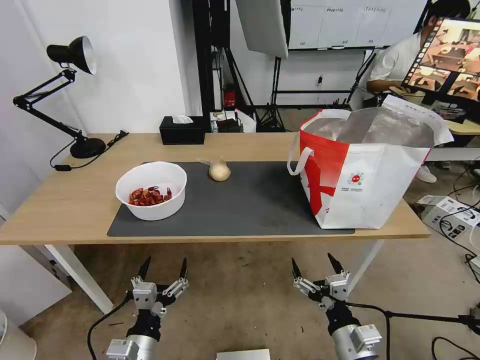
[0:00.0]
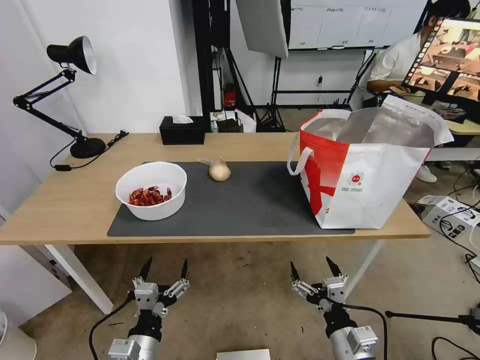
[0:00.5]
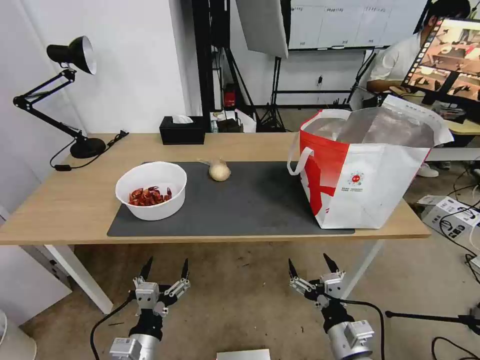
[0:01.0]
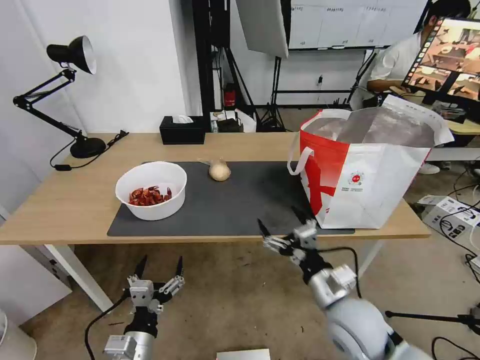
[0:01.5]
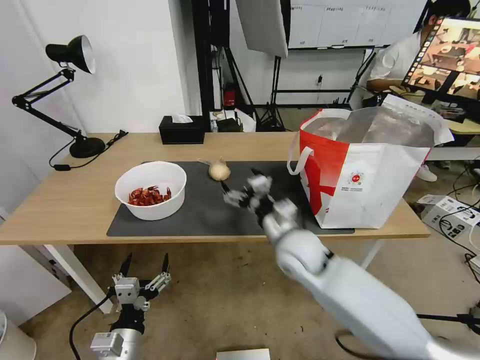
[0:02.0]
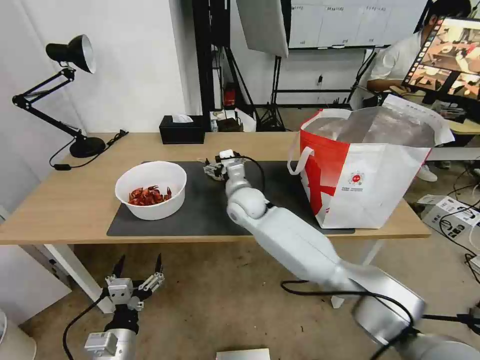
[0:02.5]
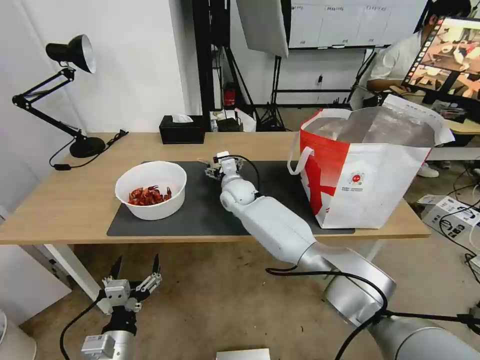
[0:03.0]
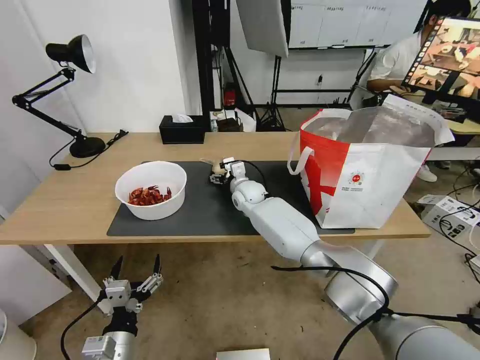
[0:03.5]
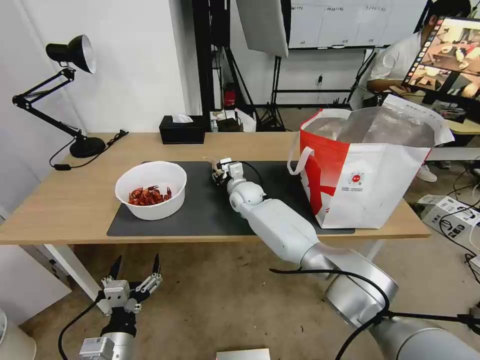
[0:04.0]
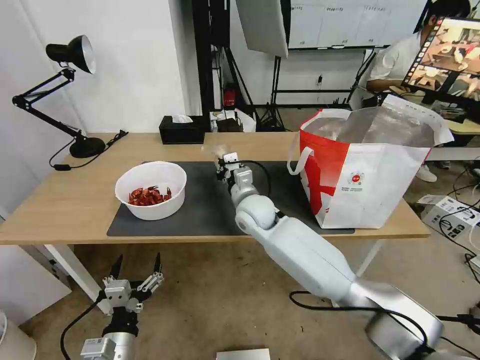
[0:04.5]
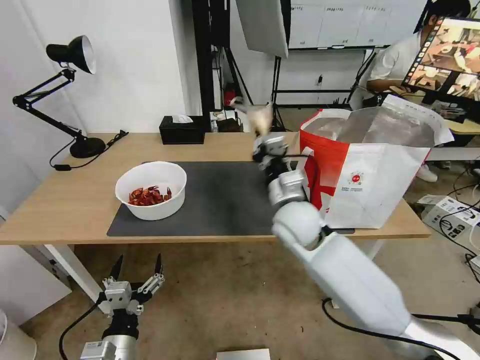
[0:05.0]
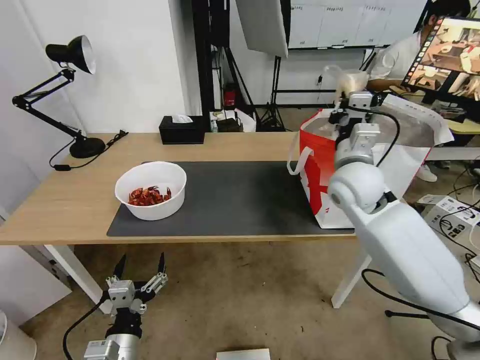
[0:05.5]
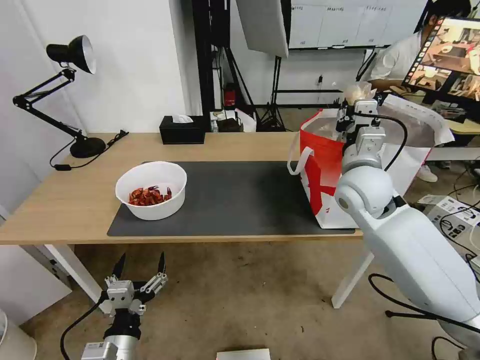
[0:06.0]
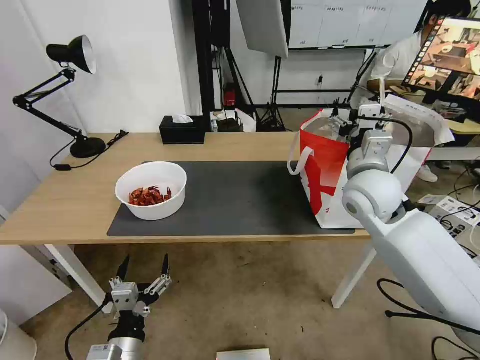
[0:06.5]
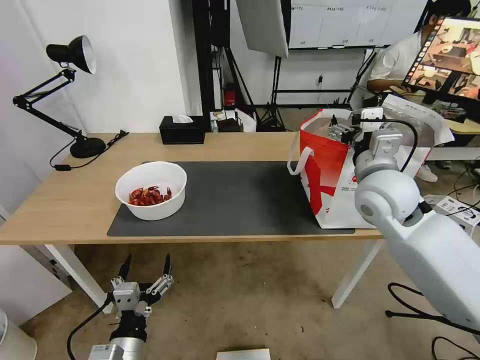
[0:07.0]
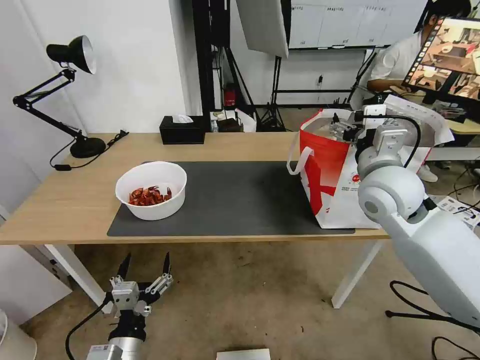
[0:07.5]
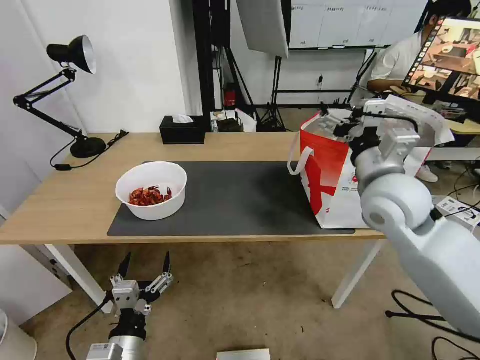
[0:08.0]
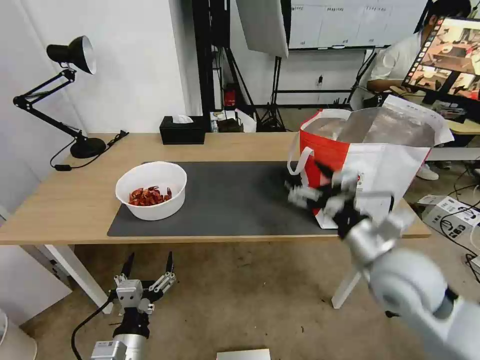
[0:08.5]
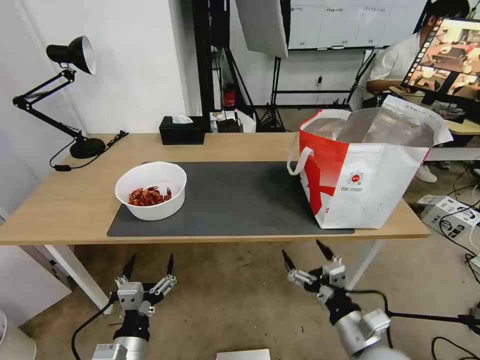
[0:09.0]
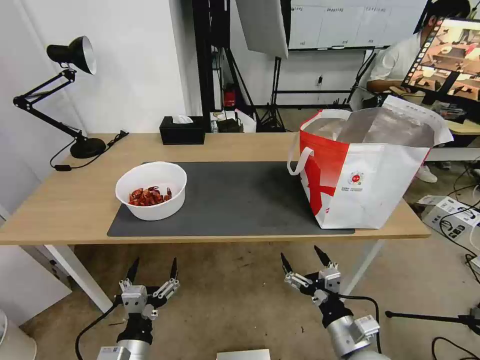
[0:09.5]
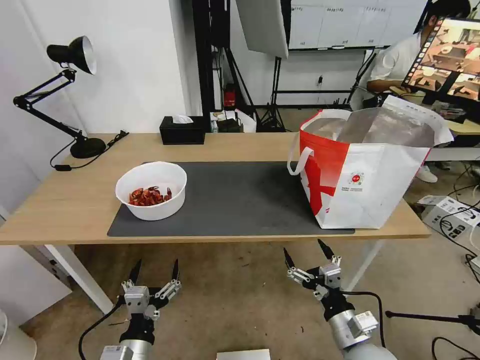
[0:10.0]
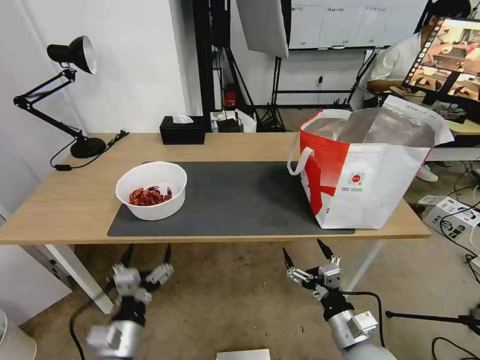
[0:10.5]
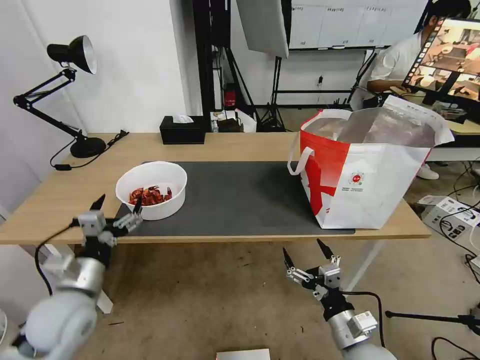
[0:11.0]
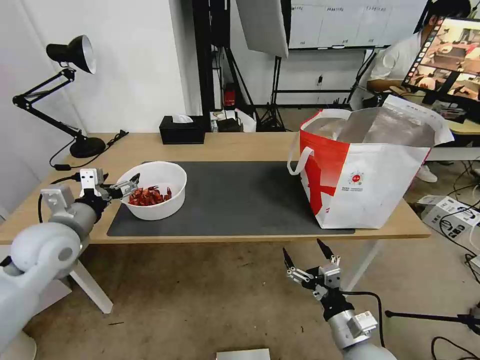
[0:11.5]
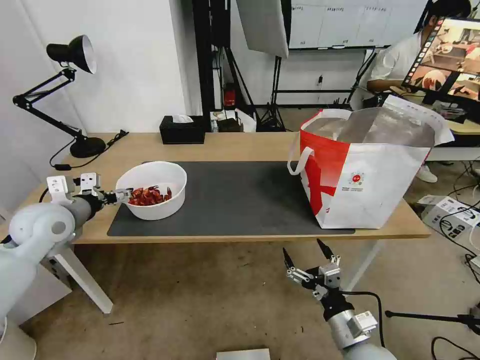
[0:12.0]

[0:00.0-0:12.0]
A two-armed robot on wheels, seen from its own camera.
Task of the whole recording: Pick up the trash from the table and place it into the takeout bag.
0:00.0 to 0:02.0: The right gripper is displaced forward, to the left and upward by about 25 cm.
0:02.0 to 0:04.0: The right gripper is displaced forward and to the left by about 25 cm, and closes up.
0:04.0 to 0:06.0: The right gripper is displaced to the right, upward and backward by some 30 cm.
0:06.0 to 0:08.0: The right gripper moves backward, some 5 cm, and opens up.
0:08.0 to 0:10.0: The right gripper heads downward and backward, covering about 35 cm.
0:10.0 to 0:12.0: The left gripper shifts approximately 35 cm forward, upward and to the left.

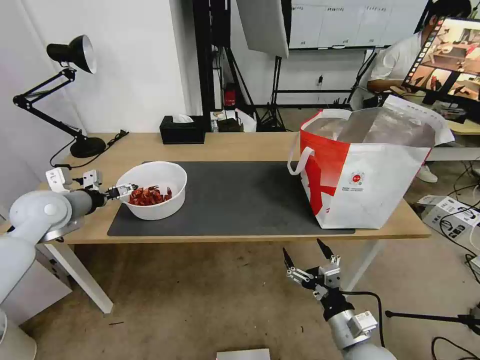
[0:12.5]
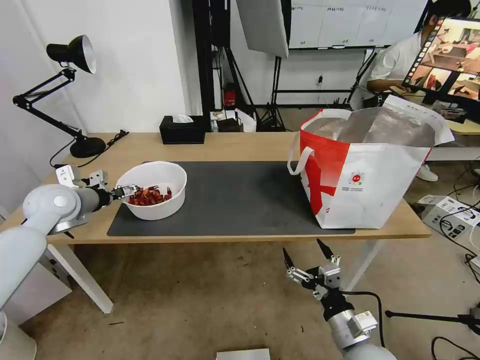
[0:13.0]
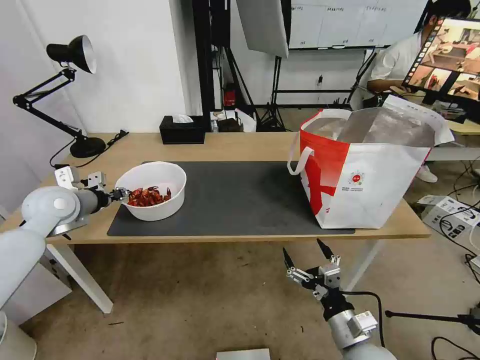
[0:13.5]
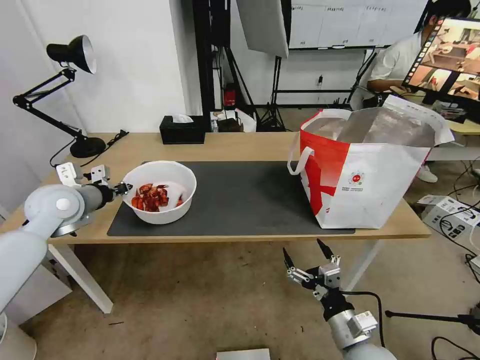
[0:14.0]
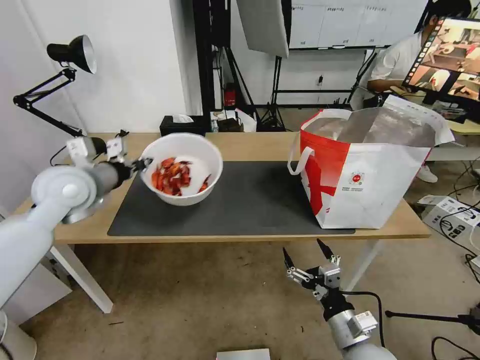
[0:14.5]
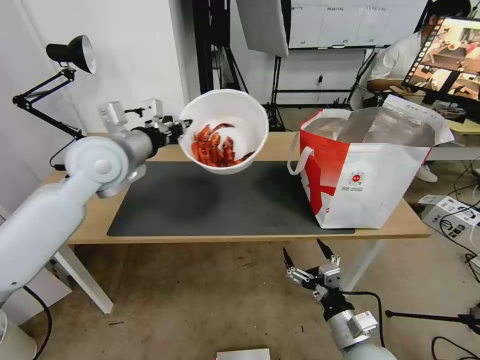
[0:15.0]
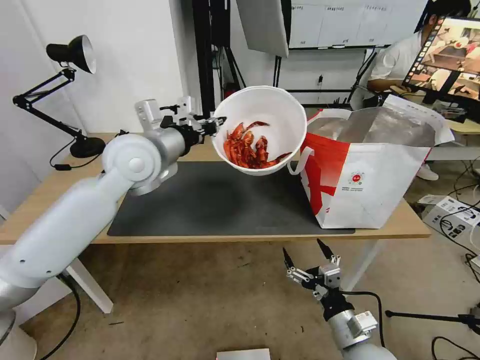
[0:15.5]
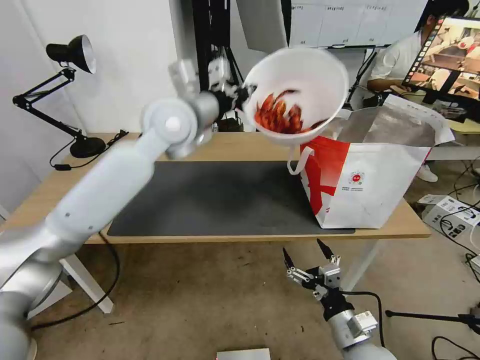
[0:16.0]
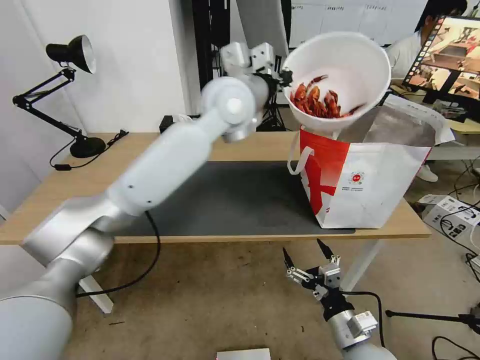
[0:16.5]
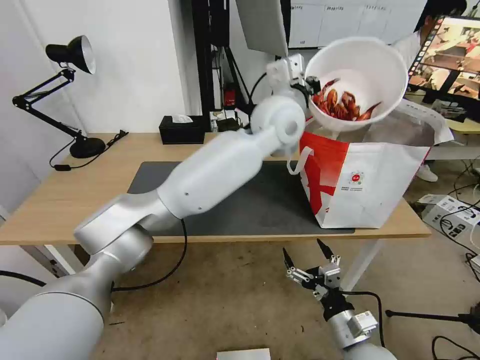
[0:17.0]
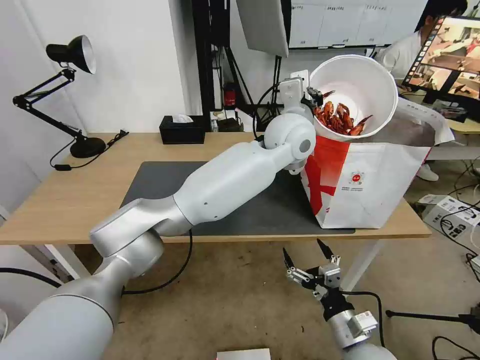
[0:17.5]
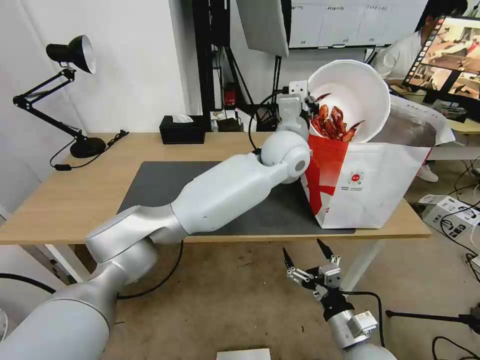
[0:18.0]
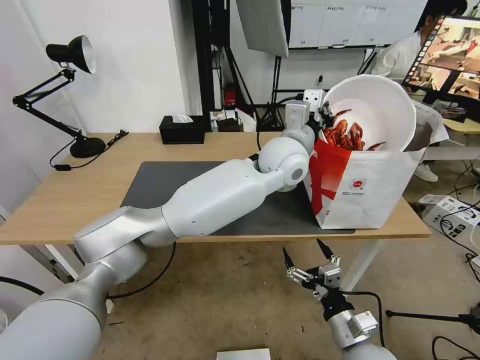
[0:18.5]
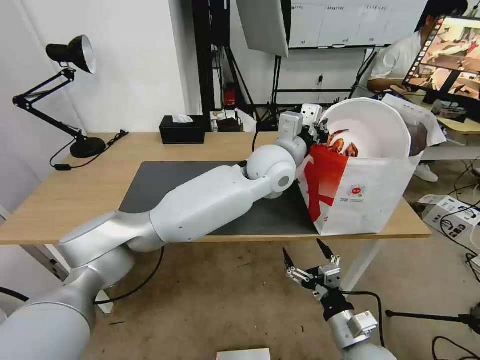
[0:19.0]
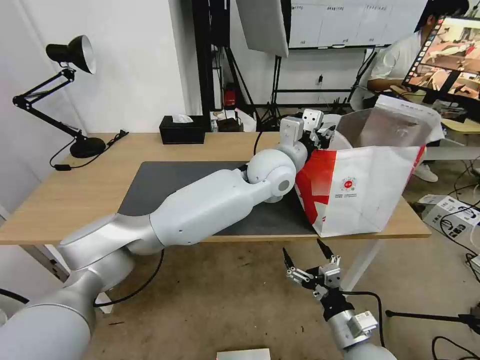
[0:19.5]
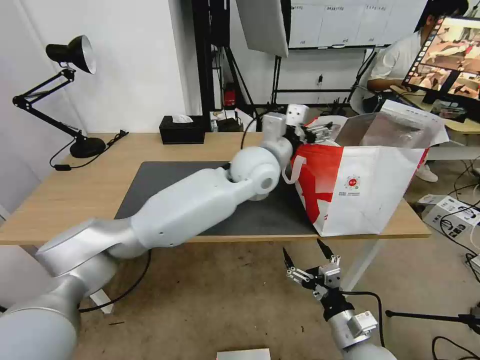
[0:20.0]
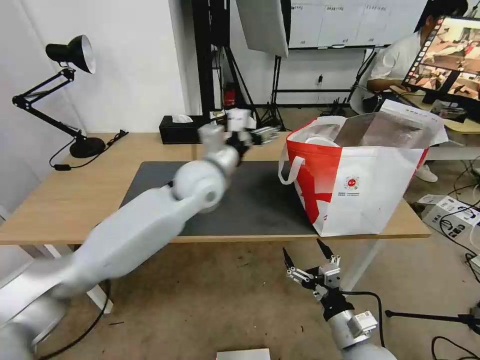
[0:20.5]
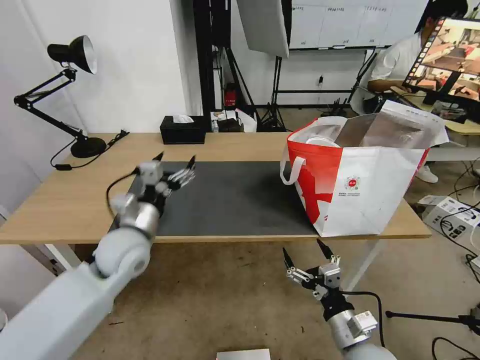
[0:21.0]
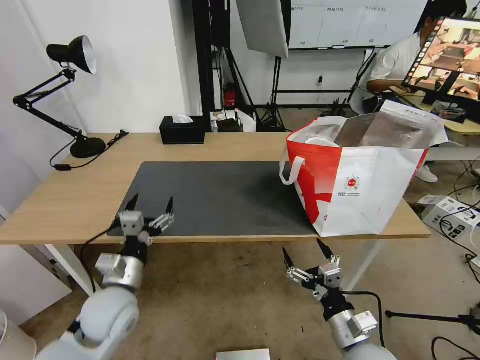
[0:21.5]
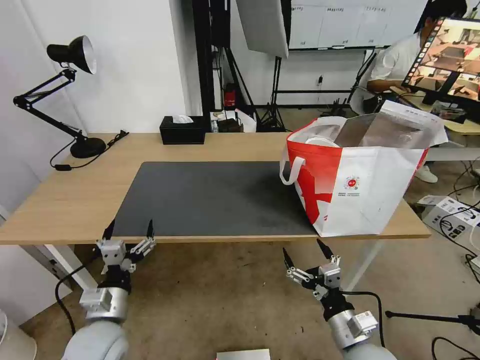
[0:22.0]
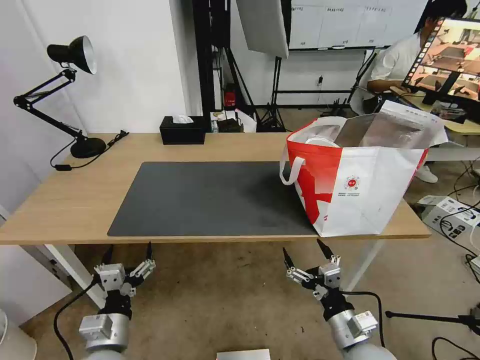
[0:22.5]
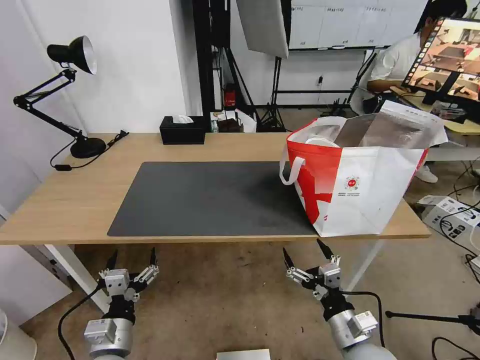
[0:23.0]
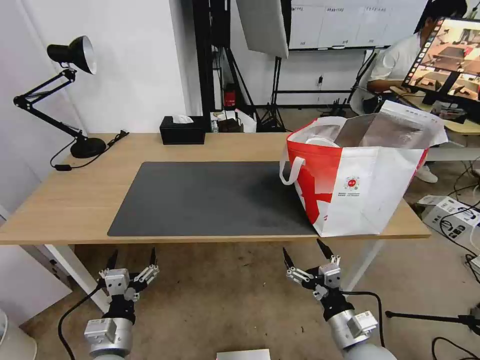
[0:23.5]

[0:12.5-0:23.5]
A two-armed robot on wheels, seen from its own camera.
Task of the whole recording: Pick up the trash from the table and place it into the takeout bag.
0:12.5 to 0:14.5: The left gripper moves to the right and upward, roughly 10 cm, and closes its fingers.
0:14.5 to 0:16.0: The left gripper goes about 20 cm to the right and upward.
0:16.0 to 0:18.0: The left gripper is displaced to the right by some 20 cm.
0:18.0 to 0:20.0: The left gripper shifts approximately 5 cm to the left, and opens up.
0:20.0 to 0:21.5: The left gripper moves to the left, backward and downward, some 40 cm.
0:21.5 to 0:23.5: The left gripper shifts some 15 cm backward and downward.

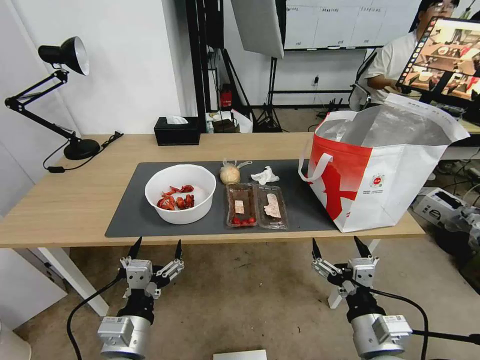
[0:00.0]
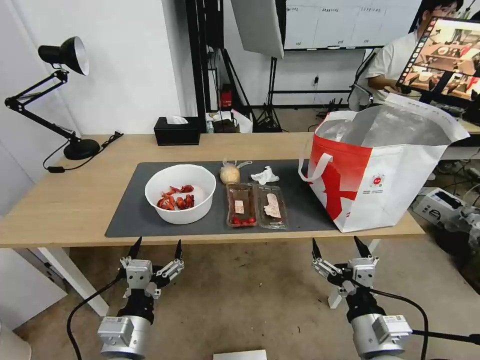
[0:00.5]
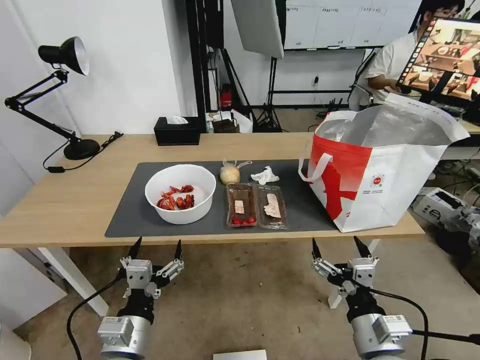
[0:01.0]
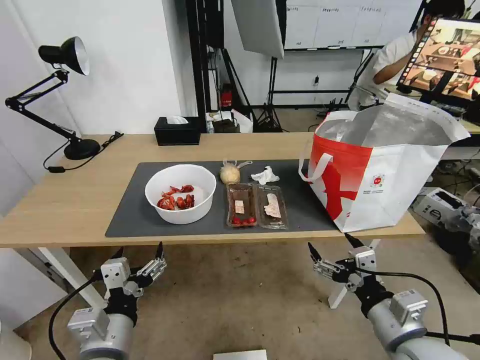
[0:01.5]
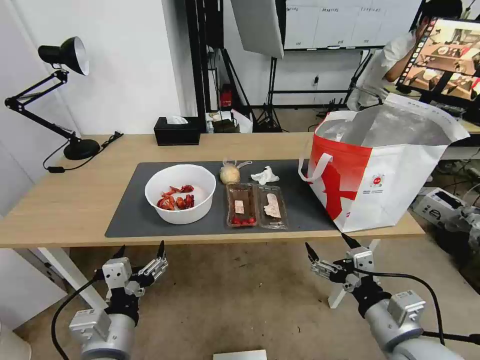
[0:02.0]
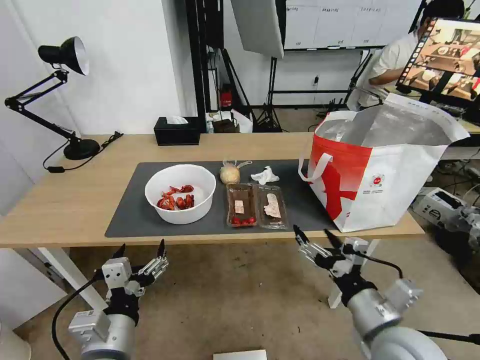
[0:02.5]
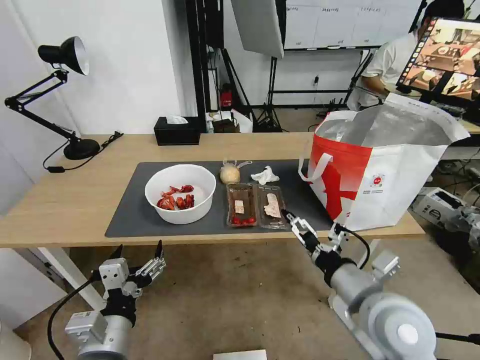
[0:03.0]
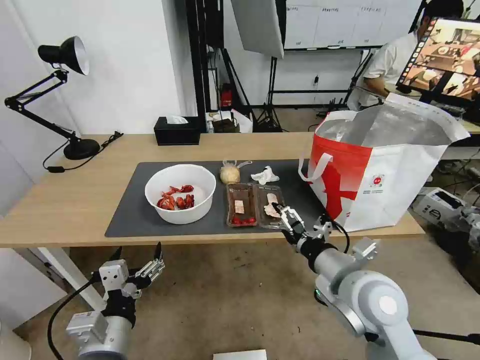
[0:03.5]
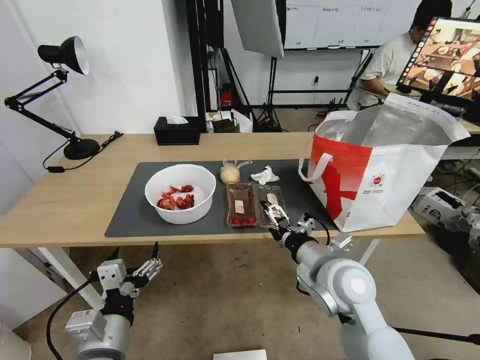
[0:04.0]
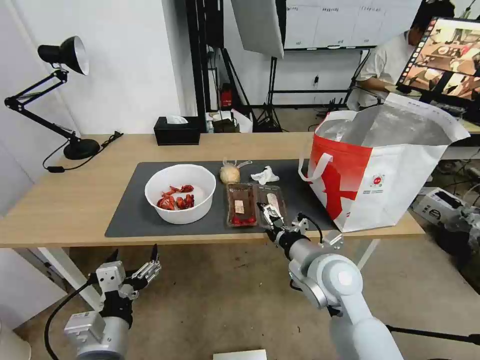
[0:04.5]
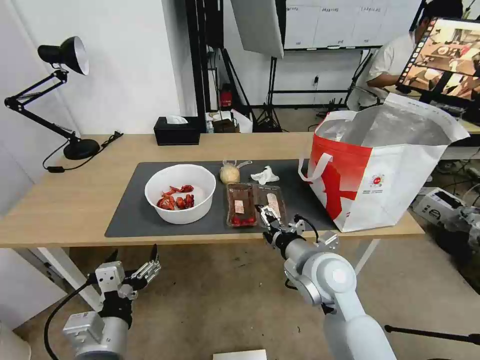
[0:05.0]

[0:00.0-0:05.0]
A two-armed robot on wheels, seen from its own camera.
Task of the whole recording: Pick up the trash from the table and place it into the takeout bag.
0:02.5 to 0:05.0: The right gripper heads forward and to the left, covering about 15 cm.
